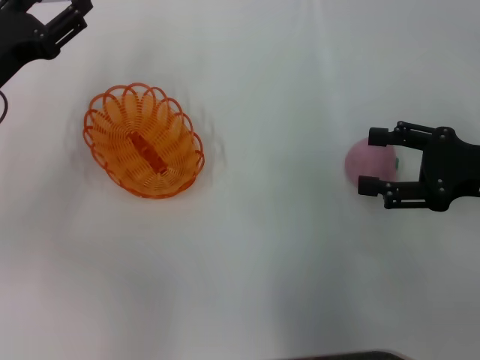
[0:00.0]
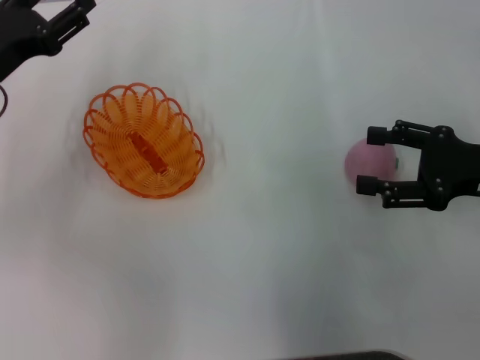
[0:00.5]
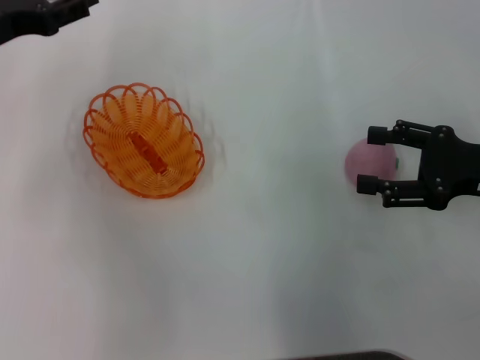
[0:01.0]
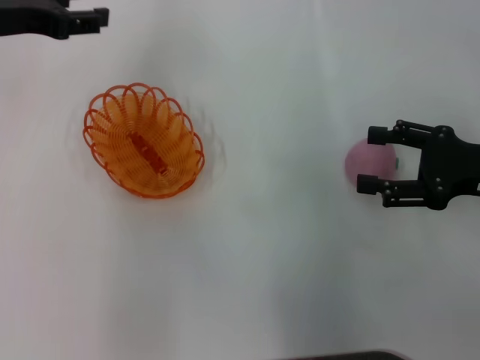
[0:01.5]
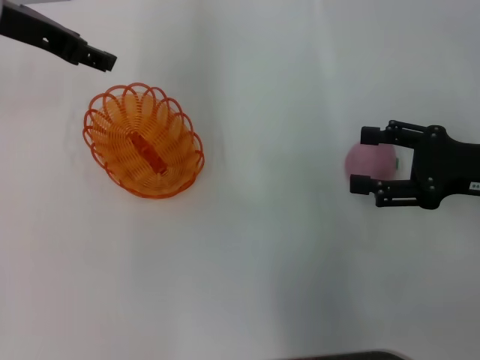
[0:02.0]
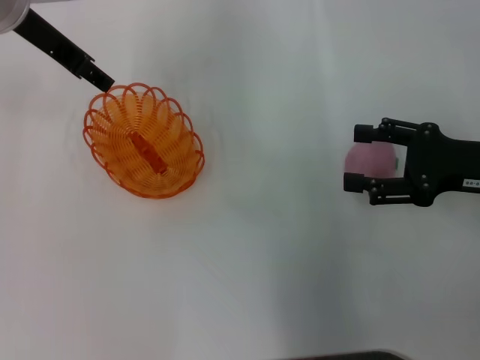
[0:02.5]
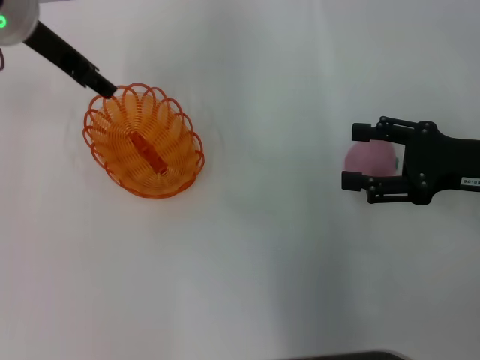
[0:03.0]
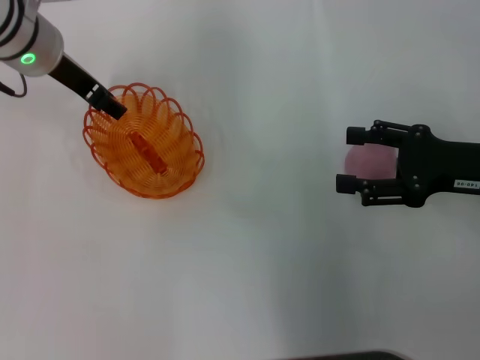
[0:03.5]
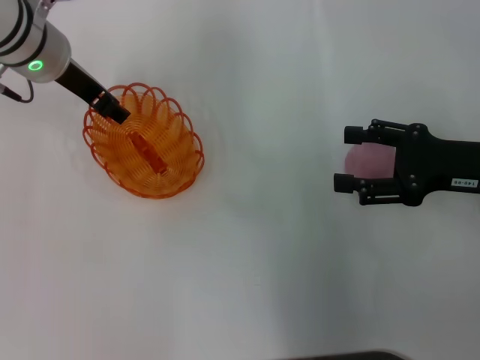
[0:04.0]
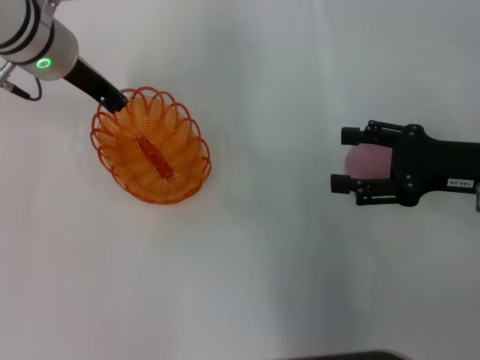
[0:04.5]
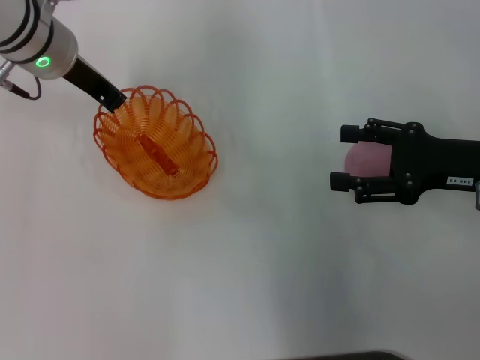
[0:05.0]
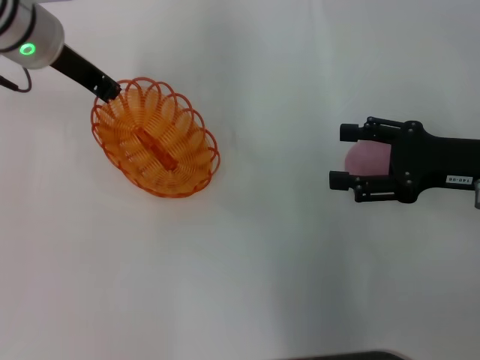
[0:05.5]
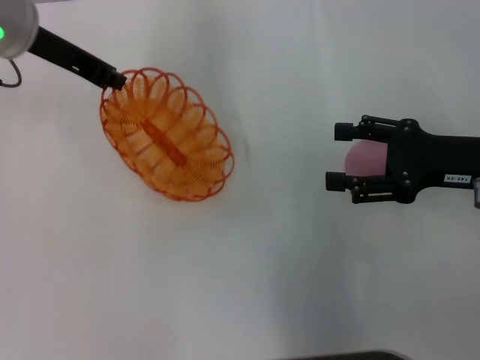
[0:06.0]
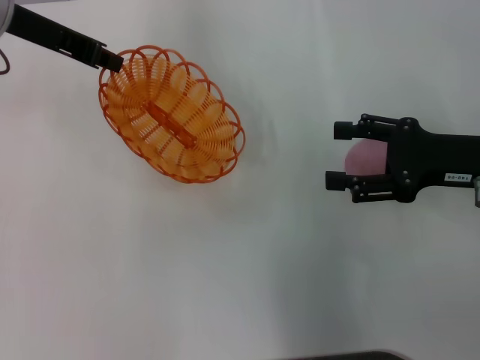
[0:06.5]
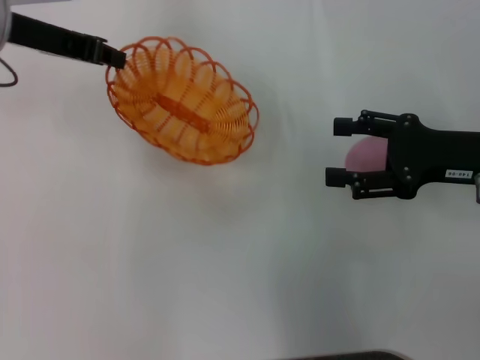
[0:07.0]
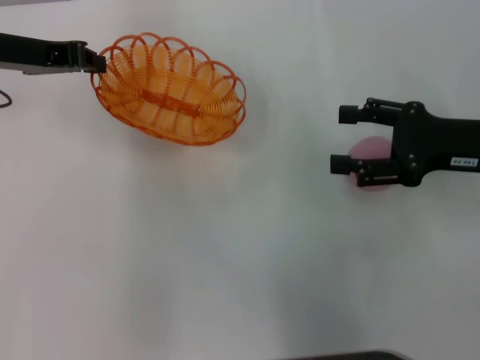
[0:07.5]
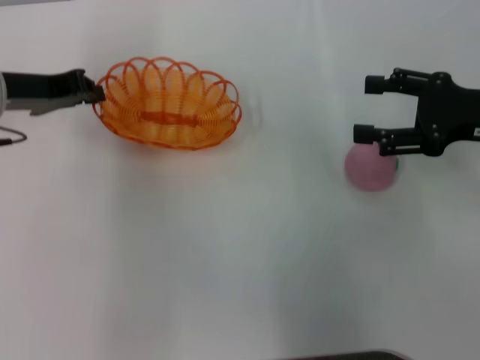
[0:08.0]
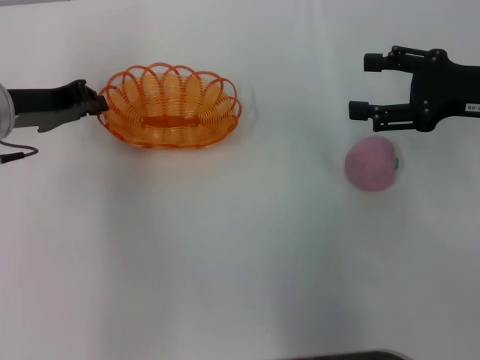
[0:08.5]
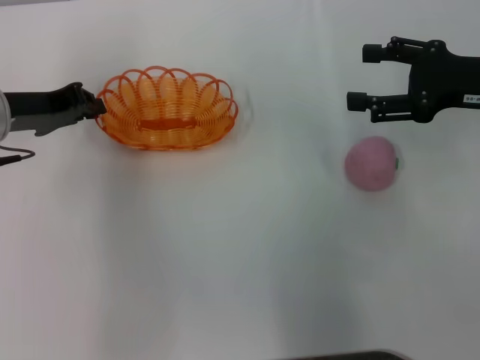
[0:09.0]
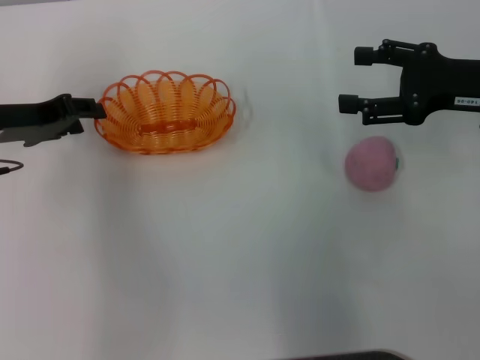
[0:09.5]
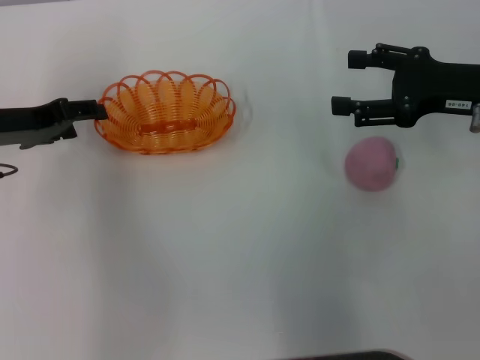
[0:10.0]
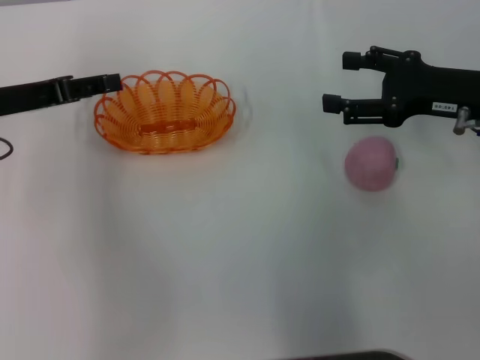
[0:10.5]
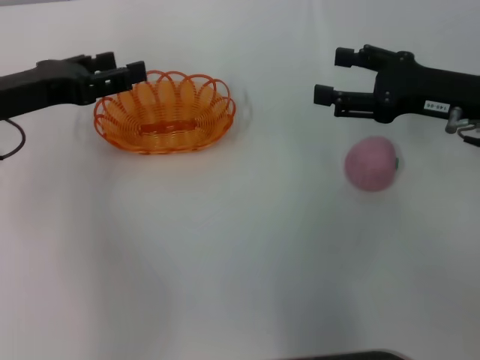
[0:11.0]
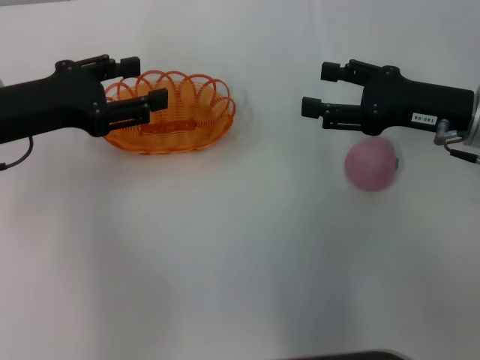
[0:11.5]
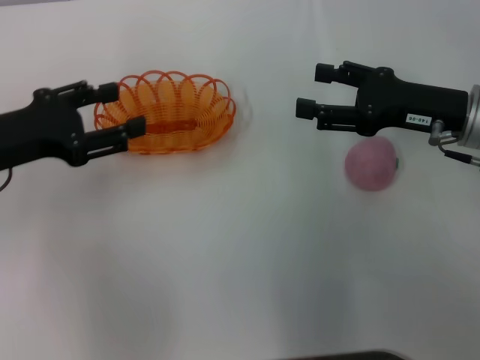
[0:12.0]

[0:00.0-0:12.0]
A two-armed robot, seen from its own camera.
Step, 0:00.0 to 0:05.5: Pick up the basket with the left gripper.
Step, 0:06.0 to 0:09.5: Place the basket in the center of view with the left gripper.
0:00.0 to 0:02.0: The left gripper is displaced upward, forward and to the right by about 15 cm.
0:02.0 to 0:04.0: The left gripper moves downward, roughly 5 cm.
0:04.0 to 0:06.0: The left gripper shifts by about 5 cm, and closes its fingers.
0:06.0 to 0:08.0: The left gripper goes roughly 5 cm downward.
0:08.0 to 0:10.0: The left gripper opens.
0:10.0 to 0:12.0: The left gripper travels backward by roughly 5 cm.

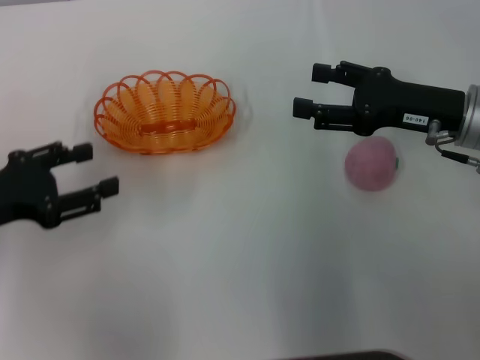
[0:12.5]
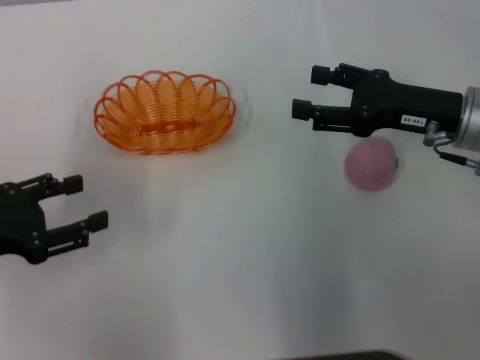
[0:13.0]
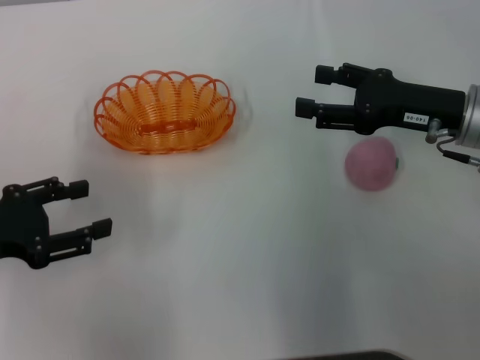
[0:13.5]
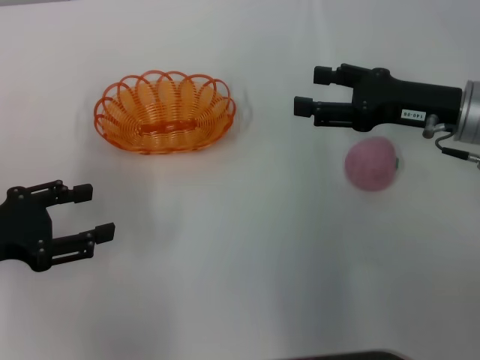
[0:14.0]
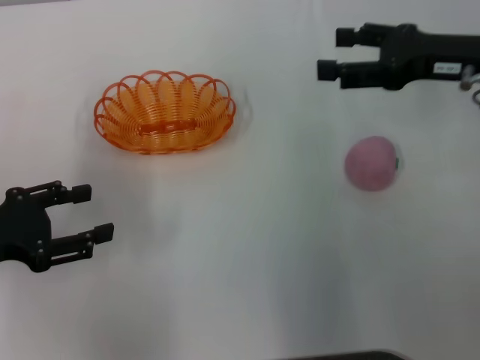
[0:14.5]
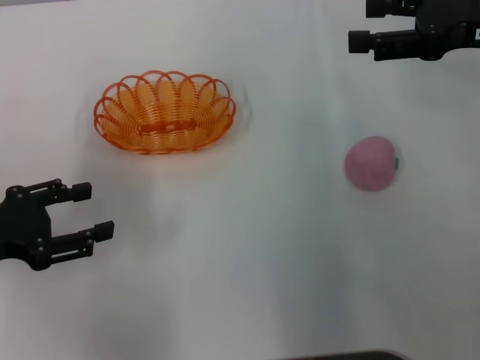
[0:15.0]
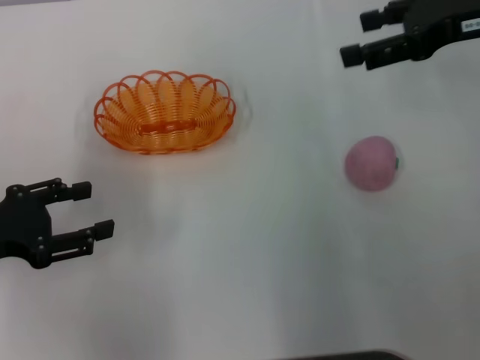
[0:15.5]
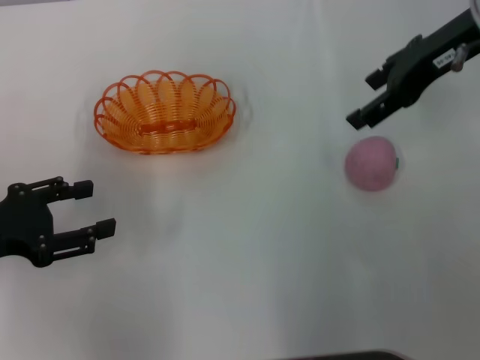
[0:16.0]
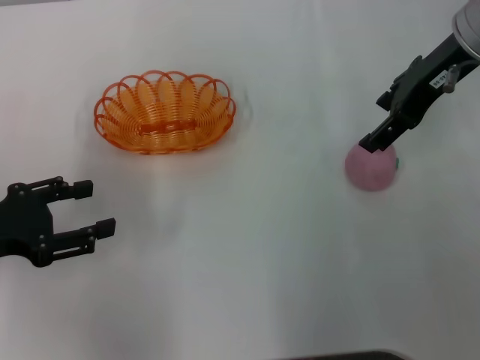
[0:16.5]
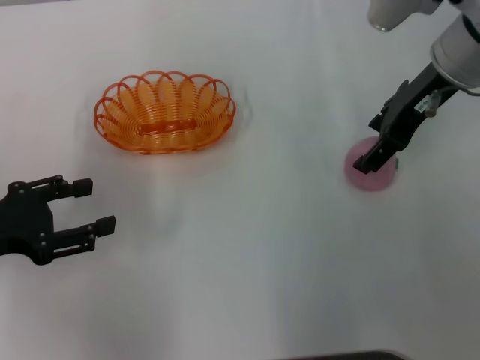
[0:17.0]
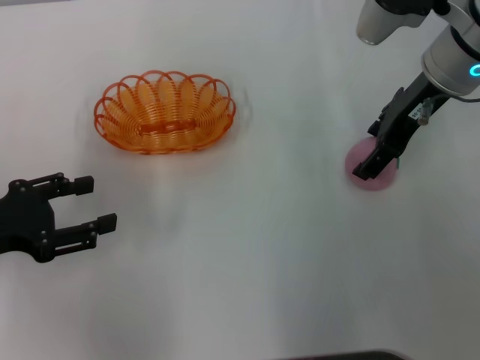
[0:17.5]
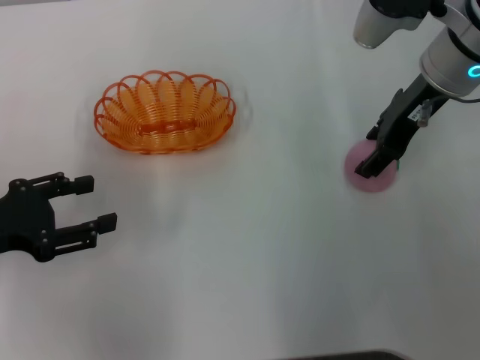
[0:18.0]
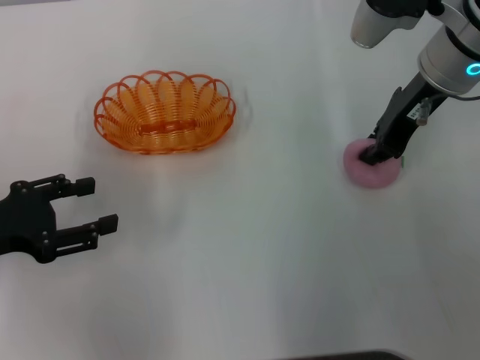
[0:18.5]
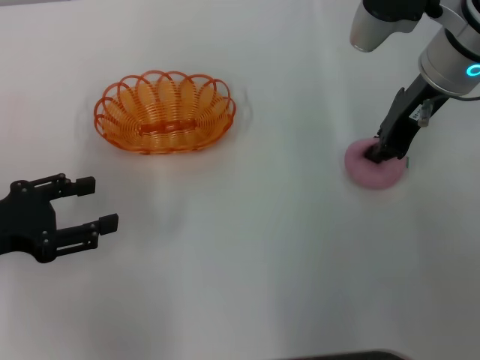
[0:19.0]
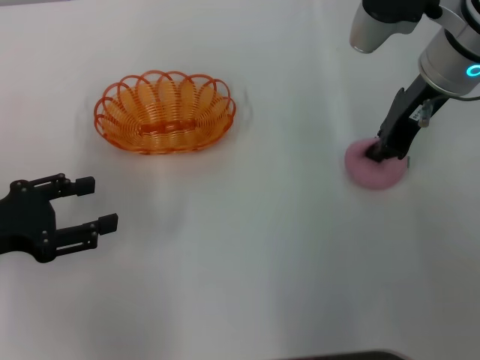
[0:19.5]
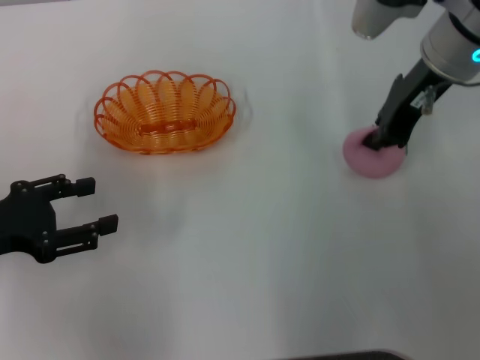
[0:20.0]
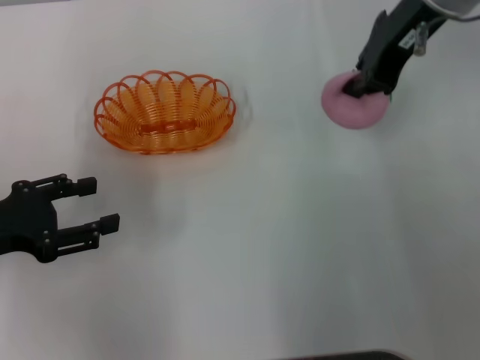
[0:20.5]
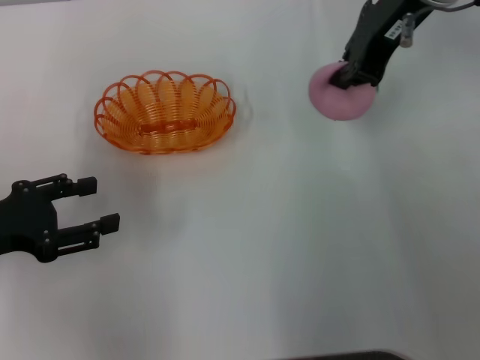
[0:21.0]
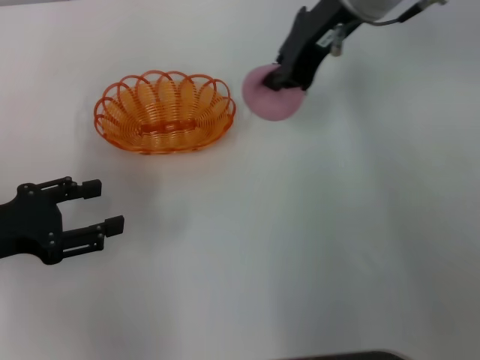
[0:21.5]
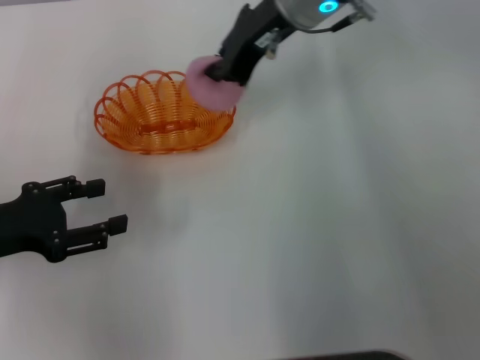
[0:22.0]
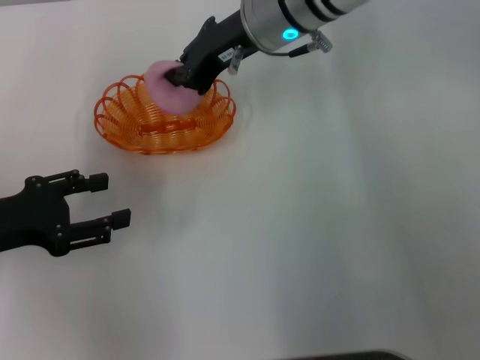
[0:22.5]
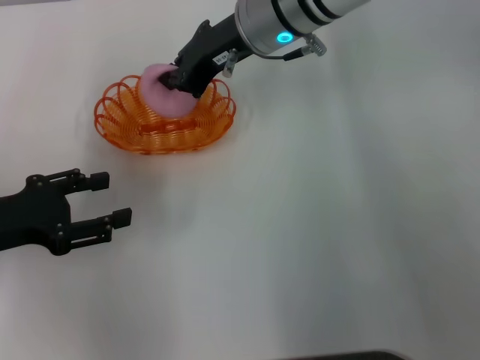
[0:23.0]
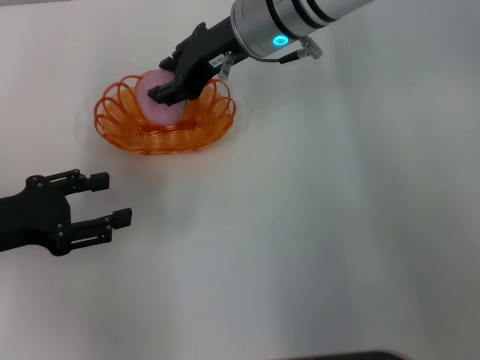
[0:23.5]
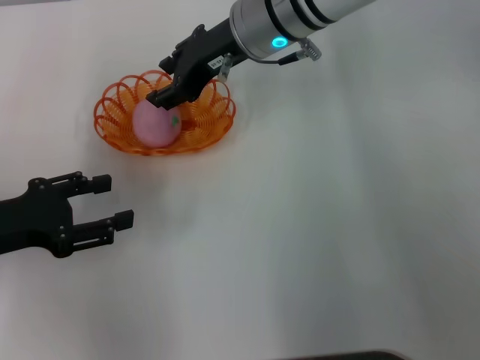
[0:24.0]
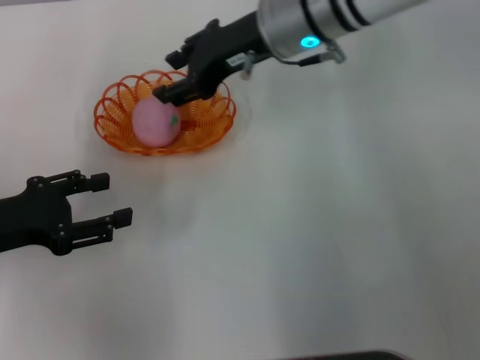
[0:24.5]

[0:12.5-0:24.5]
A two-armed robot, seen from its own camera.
Step, 0:12.5 to 0:20.5: Pick up the peach with the right gripper.
Step, 0:21.0 to 0:24.0: Place the peach into the basket with the right gripper.
0:12.5 to 0:14.5: The right gripper moves upward, approximately 5 cm.
0:14.5 to 0:16.5: The right gripper moves to the left and upward, approximately 10 cm.
0:16.5 to 0:18.5: The right gripper closes up.
0:18.5 to 0:20.5: The right gripper heads upward, covering about 10 cm, and closes up.
0:20.5 to 0:22.5: The right gripper heads to the left and downward, covering roughly 15 cm.
0:22.5 to 0:24.5: The right gripper opens up.

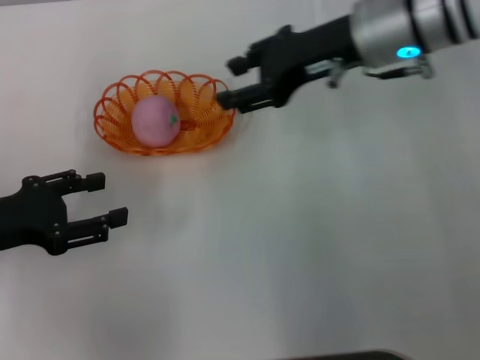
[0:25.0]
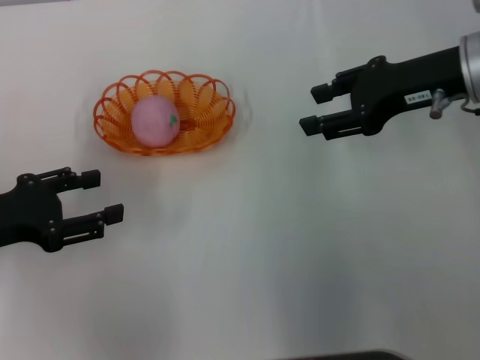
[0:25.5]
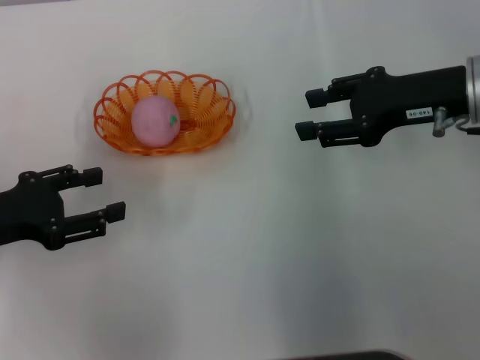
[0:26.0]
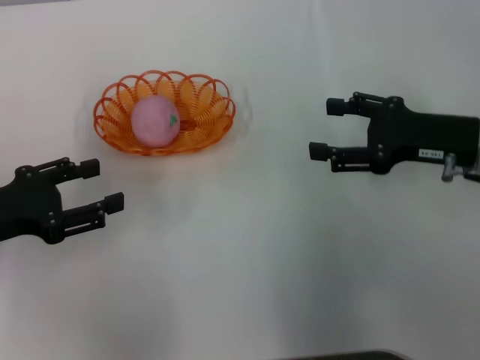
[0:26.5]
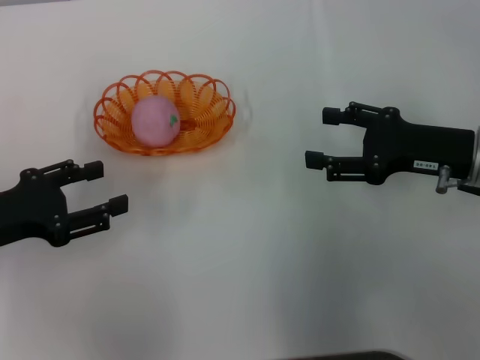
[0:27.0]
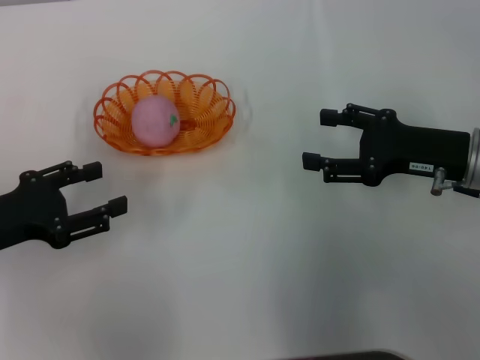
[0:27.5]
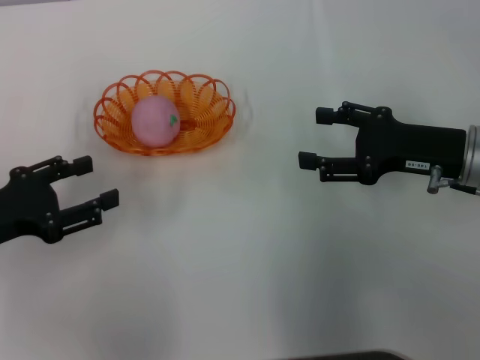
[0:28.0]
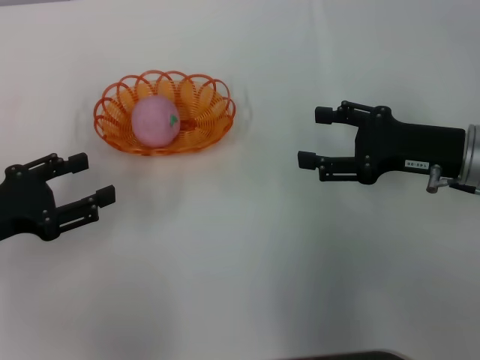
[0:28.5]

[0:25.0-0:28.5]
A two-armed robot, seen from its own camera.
0:25.0 to 0:27.0: The right gripper is displaced to the right, downward and backward by some 20 cm.
0:27.0 to 0:28.5: The two grippers keep their place.
